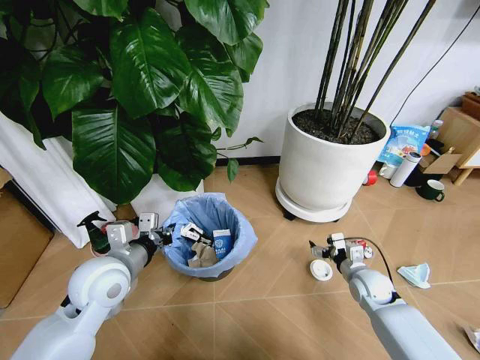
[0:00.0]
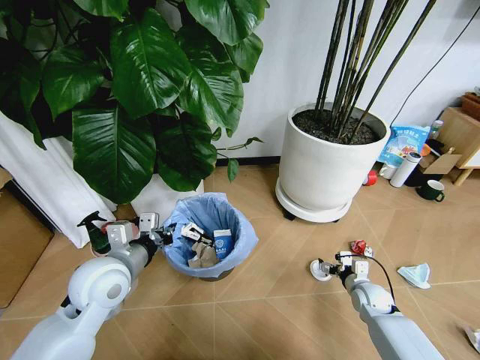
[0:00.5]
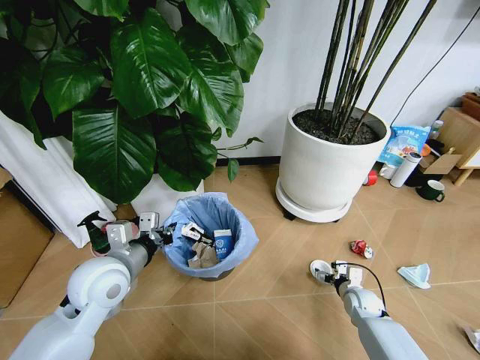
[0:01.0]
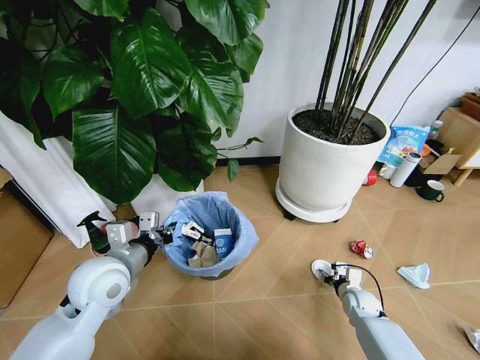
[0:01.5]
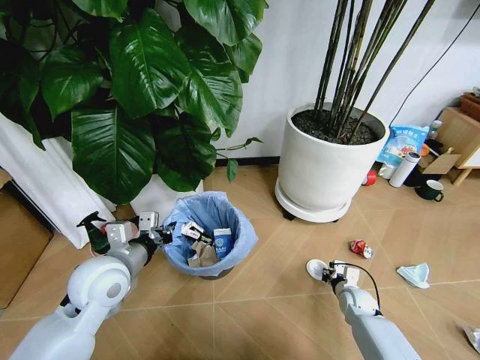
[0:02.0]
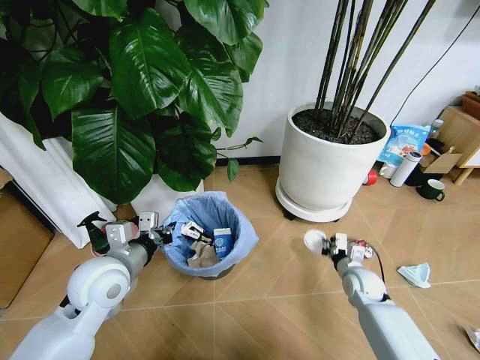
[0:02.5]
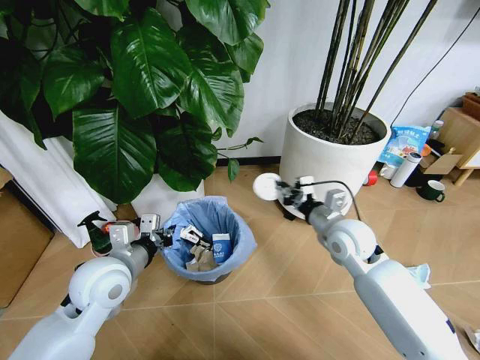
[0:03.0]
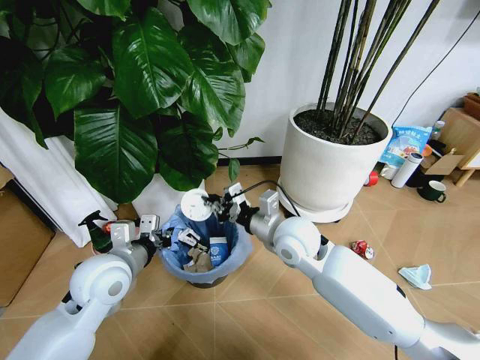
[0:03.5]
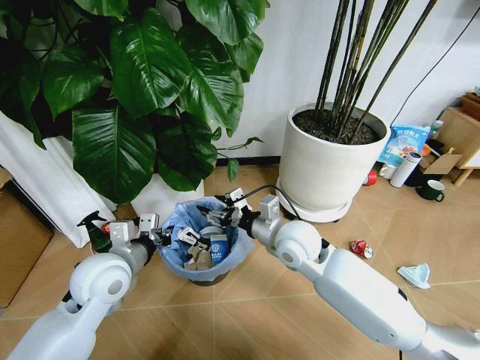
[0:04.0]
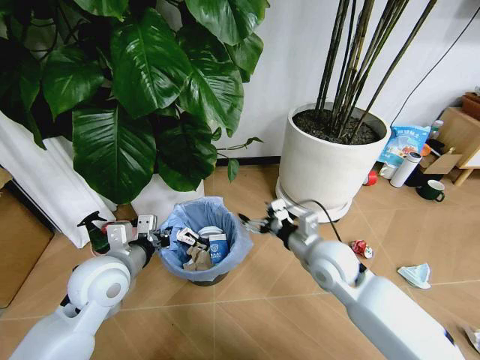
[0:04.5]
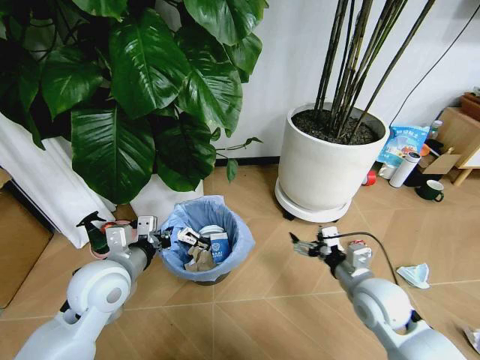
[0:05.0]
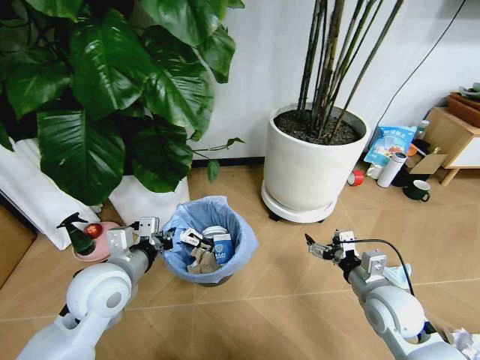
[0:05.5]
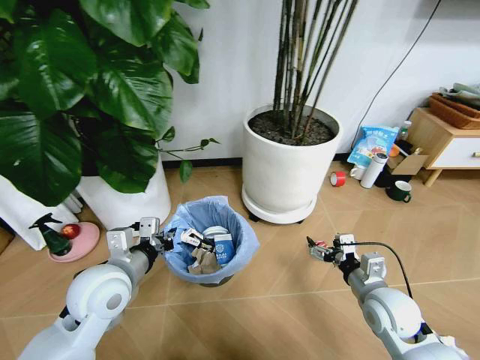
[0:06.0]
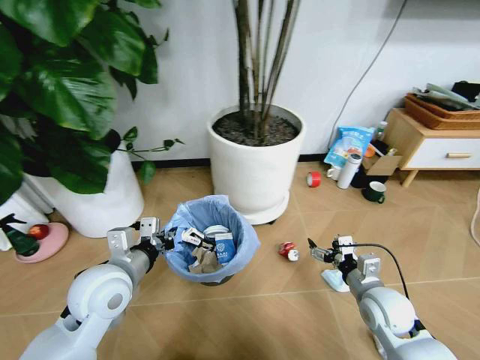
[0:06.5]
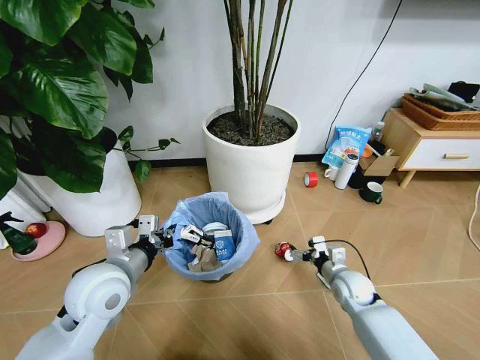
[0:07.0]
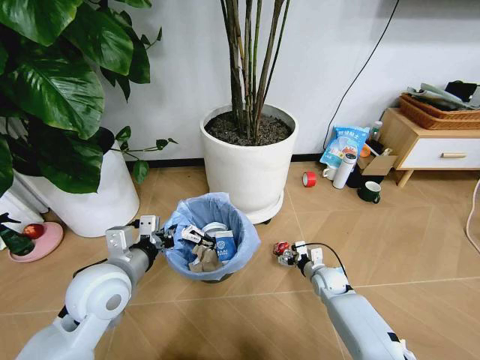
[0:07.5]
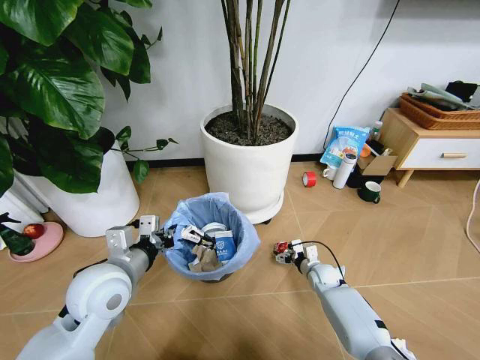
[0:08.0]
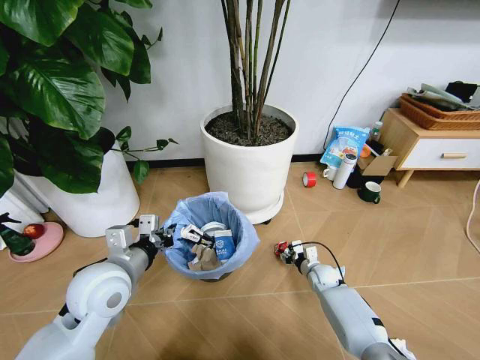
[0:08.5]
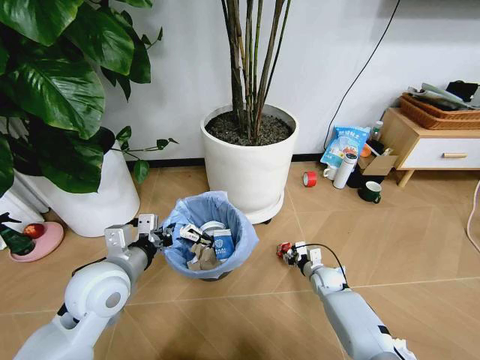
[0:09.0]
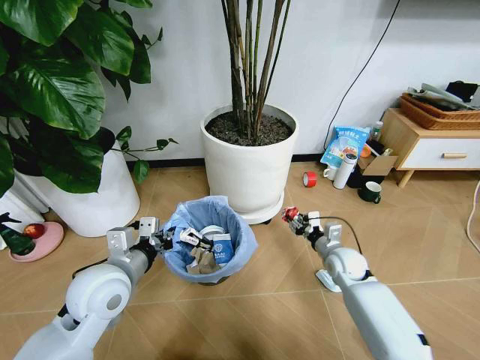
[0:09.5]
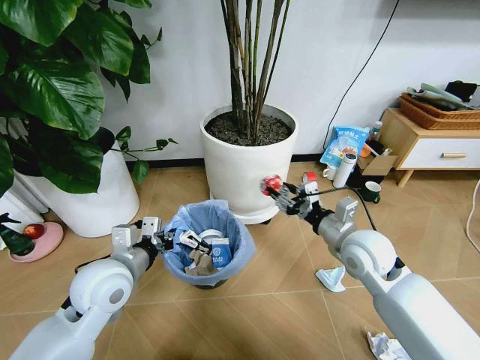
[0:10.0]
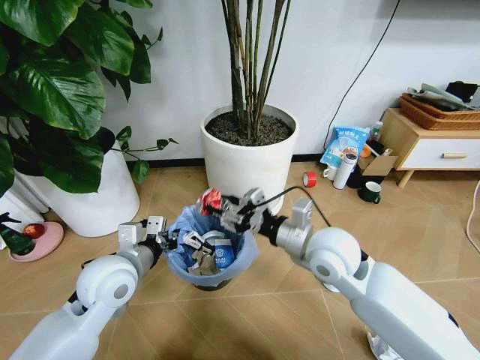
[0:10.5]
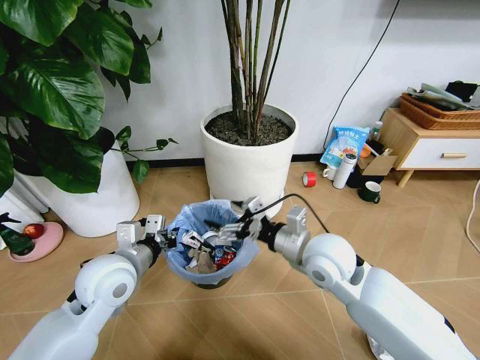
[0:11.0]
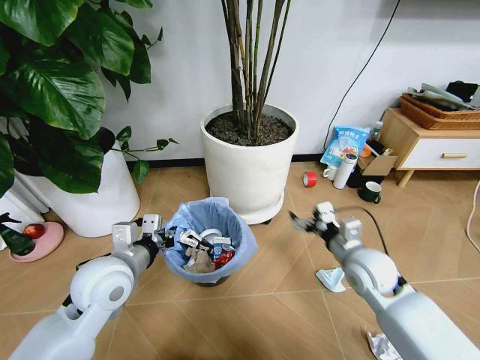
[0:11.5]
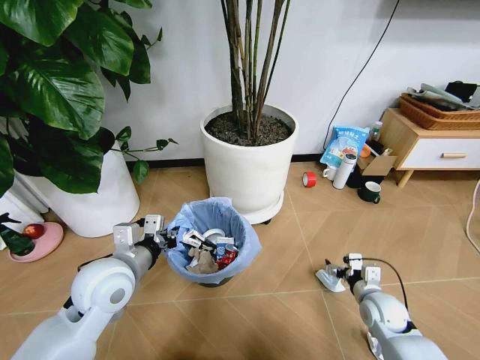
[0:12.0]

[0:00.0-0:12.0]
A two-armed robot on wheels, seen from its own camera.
Task of the whole recording: Pick up the trash bin and place the garbage on the floor into it.
0:00.0 to 0:02.0: The right gripper heads downward, covering about 10 cm, and closes up.
0:02.0 to 0:04.0: The right gripper shifts roughly 40 cm upward and to the left, and opens.
0:04.0 to 0:06.0: The right gripper is displaced to the right, backward and downward by some 25 cm, and opens.
0:06.0 to 0:08.0: The right gripper is displaced downward and forward by roughly 25 cm.
0:08.0 to 0:10.0: The right gripper moves upward, roughly 30 cm, and closes its fingers.
0:10.0 to 0:12.0: The right gripper heads downward and to the right, covering about 25 cm, and opens its fingers.

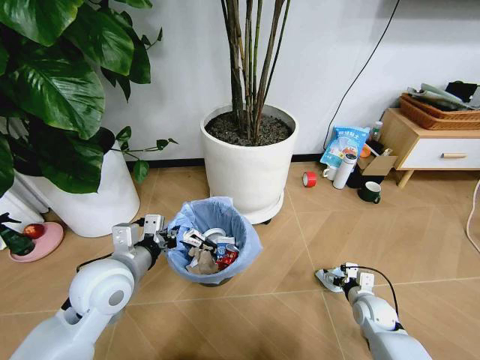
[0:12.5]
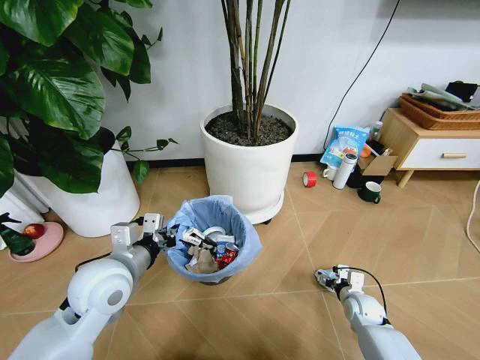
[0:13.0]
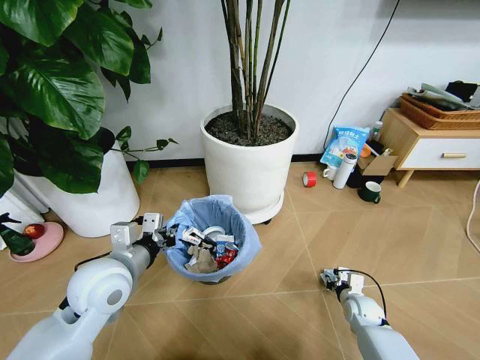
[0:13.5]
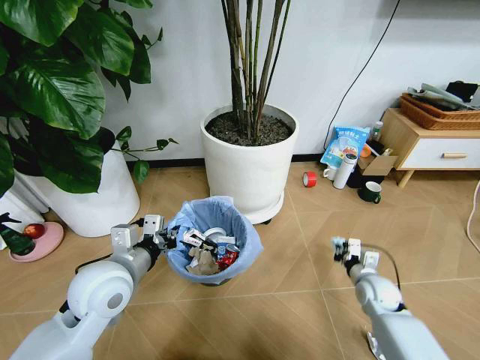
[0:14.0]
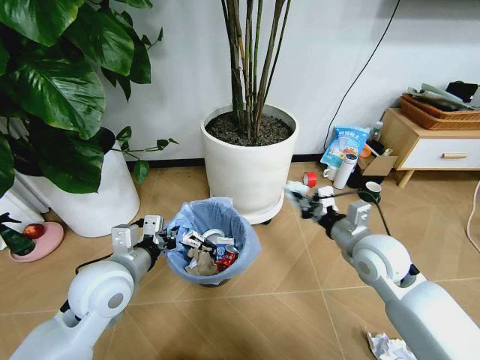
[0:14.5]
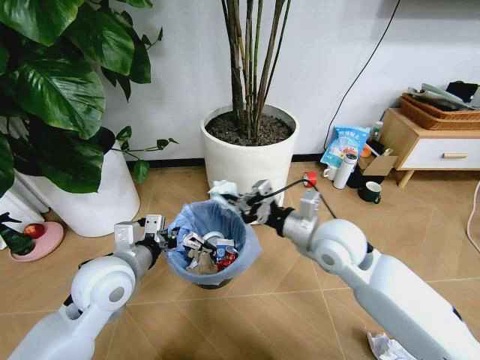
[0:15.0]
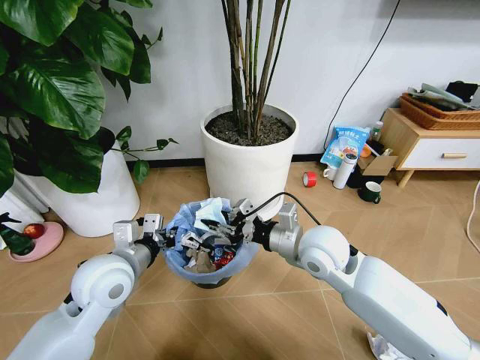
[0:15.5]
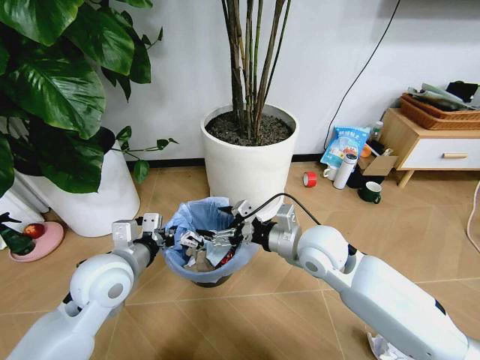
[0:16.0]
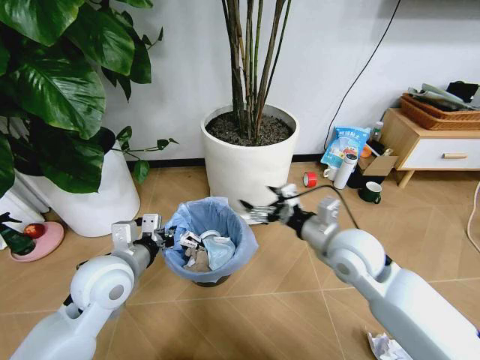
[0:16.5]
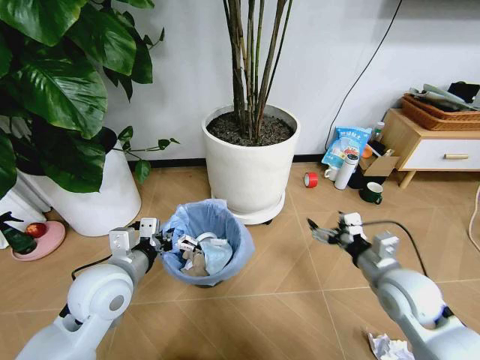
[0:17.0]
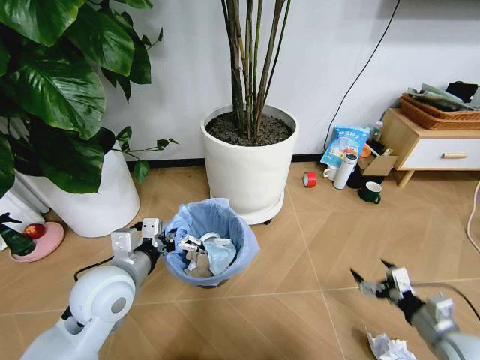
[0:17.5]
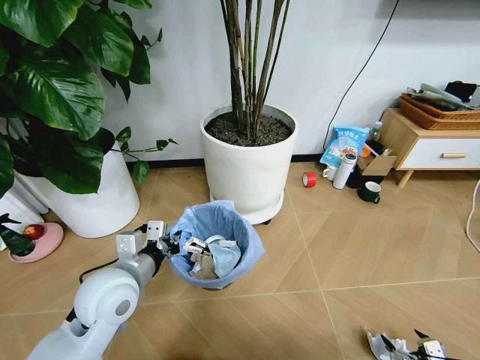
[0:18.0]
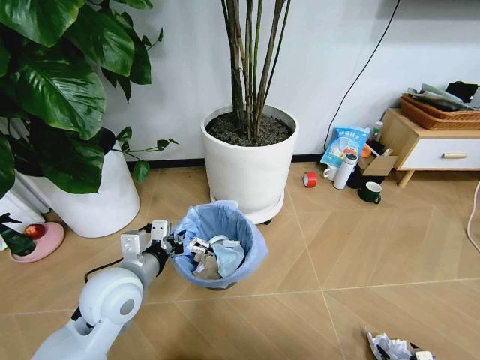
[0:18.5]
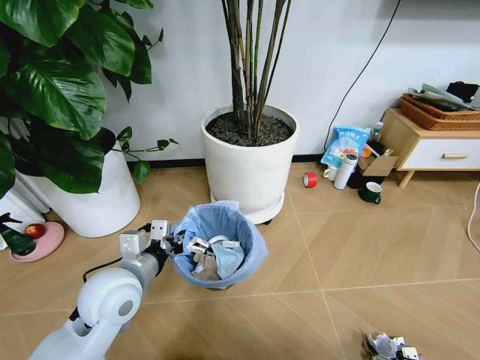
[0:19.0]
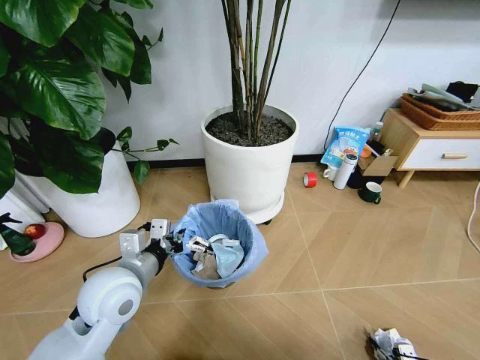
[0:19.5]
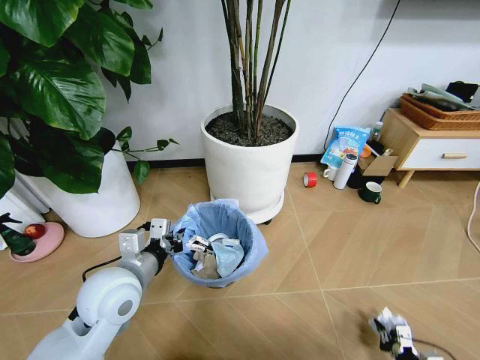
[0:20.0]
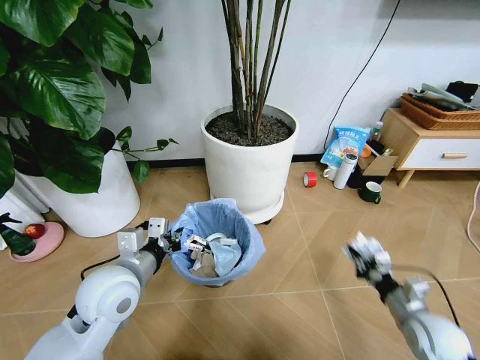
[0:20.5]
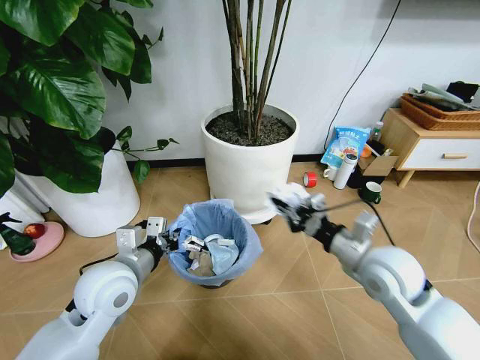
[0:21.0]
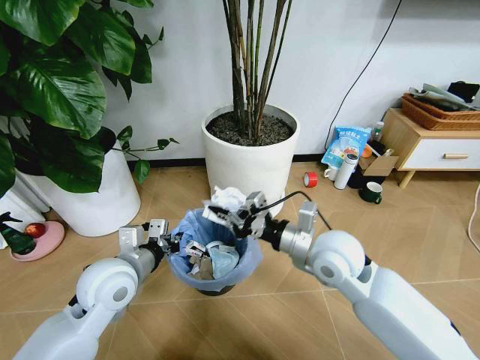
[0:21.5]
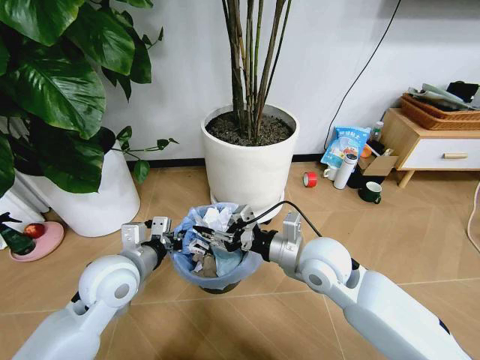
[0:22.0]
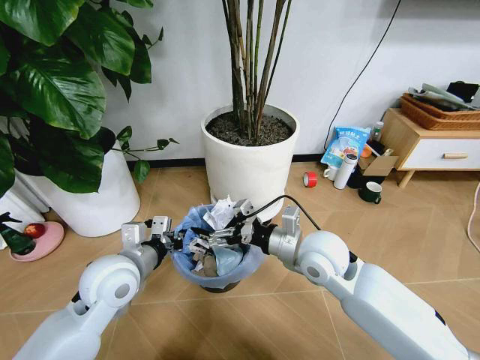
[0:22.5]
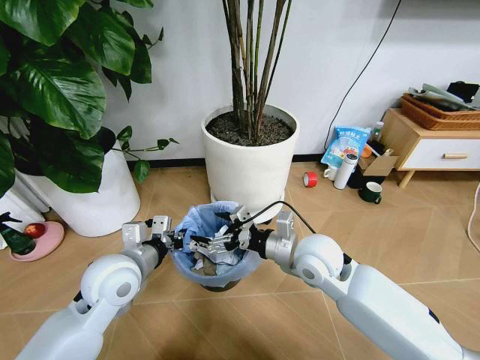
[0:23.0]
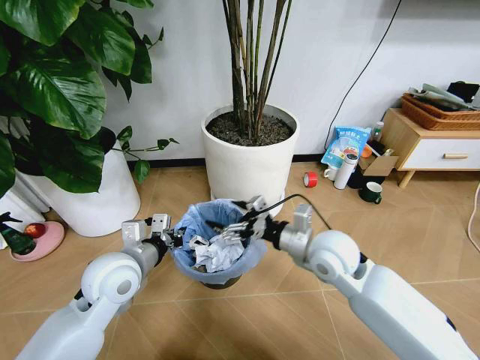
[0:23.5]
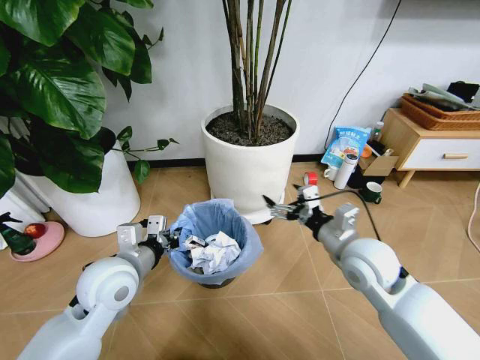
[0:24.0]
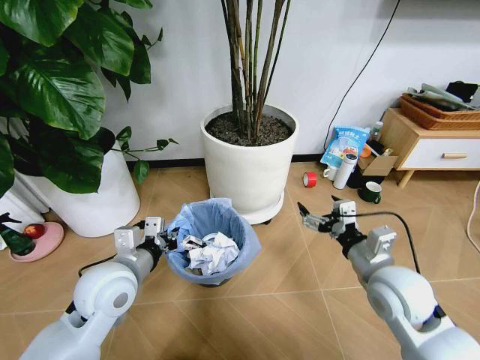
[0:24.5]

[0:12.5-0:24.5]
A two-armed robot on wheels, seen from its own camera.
Task of the whole recording: Pick up the trash bin and place the garbage on the floor into it.
0:12.5 to 0:14.5: The right gripper heads upward, covering some 25 cm, and closes.
0:14.5 to 0:16.5: The right gripper moves to the left, about 5 cm, and opens.
0:16.5 to 0:18.5: The right gripper shifts about 50 cm downward, backward and to the right.
0:18.5 to 0:20.5: The right gripper heads forward, upward and to the left, covering about 25 cm, and closes up.
0:20.5 to 0:22.5: The right gripper is displaced to the left, upward and forward by some 30 cm, and opens its fingers.
0:22.5 to 0:24.5: The right gripper shifts some 15 cm to the right and backward.

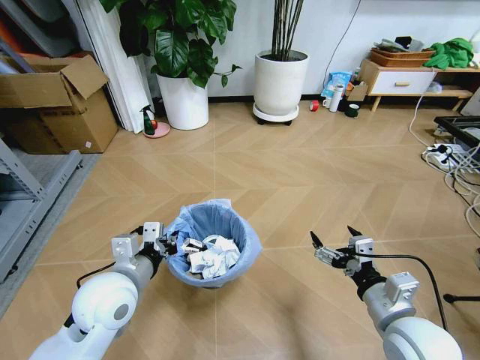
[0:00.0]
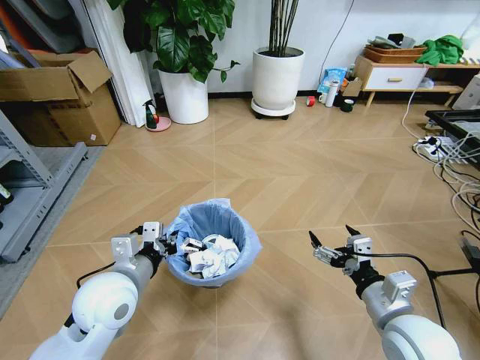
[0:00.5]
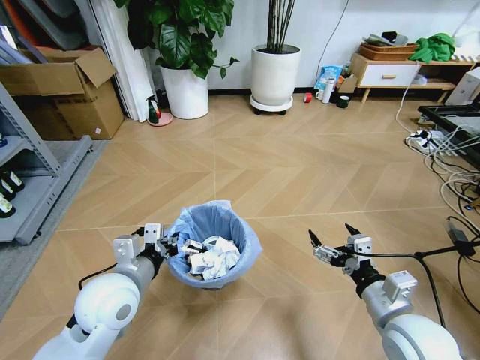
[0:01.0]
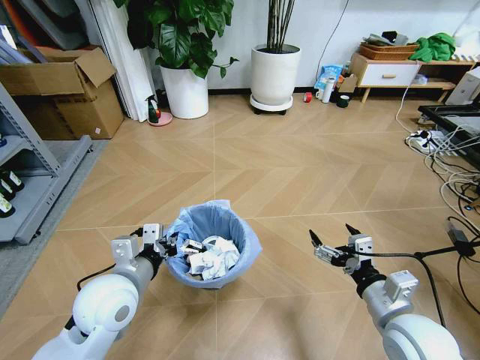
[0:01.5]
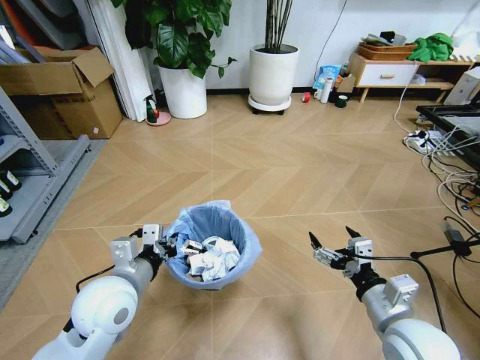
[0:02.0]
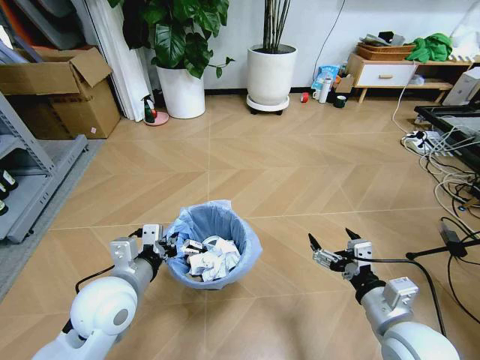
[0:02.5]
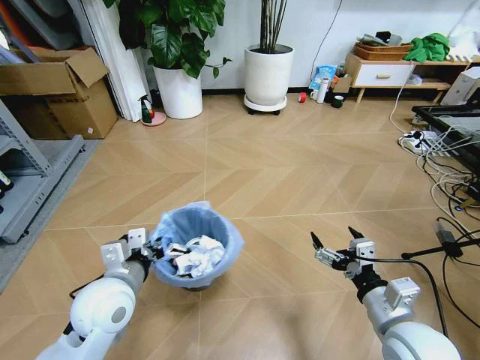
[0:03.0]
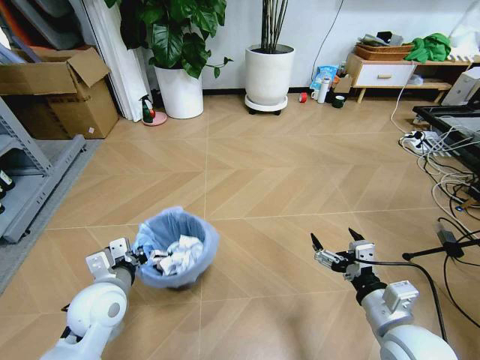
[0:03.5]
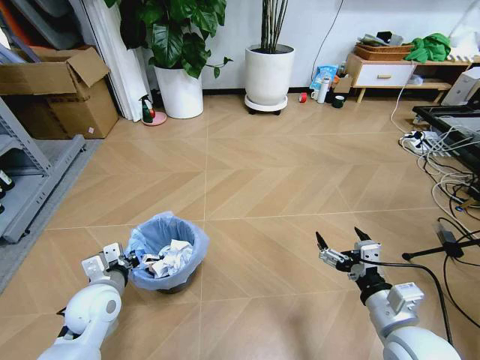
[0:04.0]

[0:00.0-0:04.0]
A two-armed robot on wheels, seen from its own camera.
Task of the whole recording: Pick up the trash bin and place the garbage on the floor into it.
0:02.0 to 0:04.0: The left gripper travels downward and to the left by roughly 10 cm.
